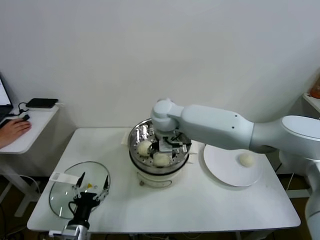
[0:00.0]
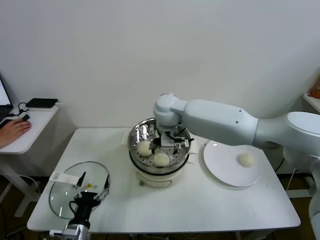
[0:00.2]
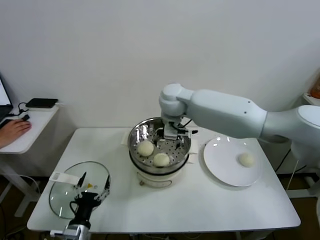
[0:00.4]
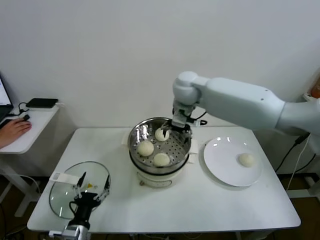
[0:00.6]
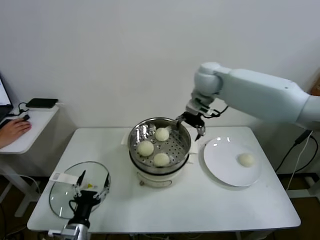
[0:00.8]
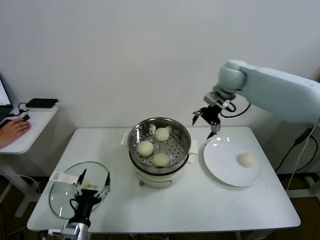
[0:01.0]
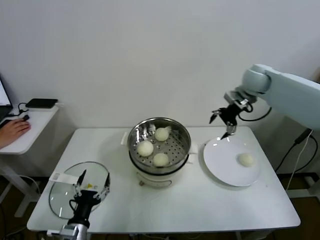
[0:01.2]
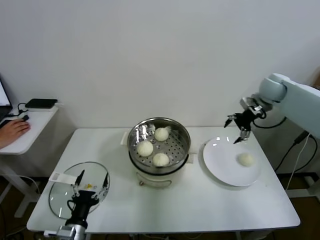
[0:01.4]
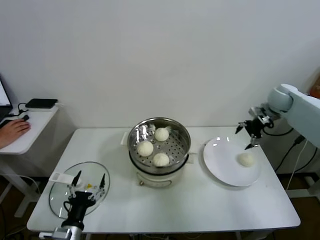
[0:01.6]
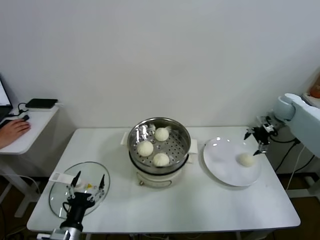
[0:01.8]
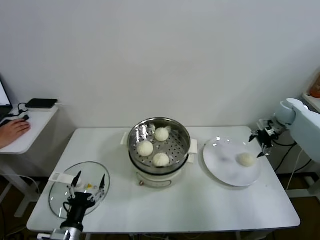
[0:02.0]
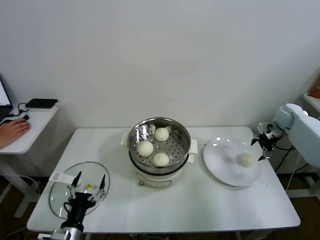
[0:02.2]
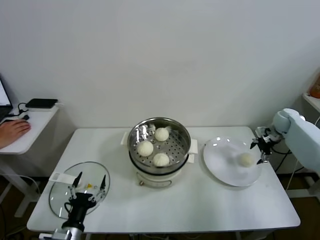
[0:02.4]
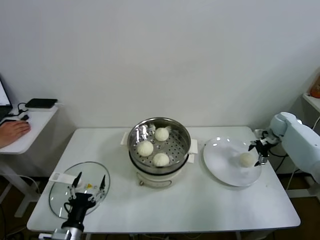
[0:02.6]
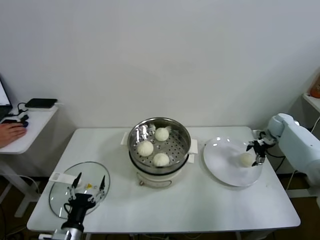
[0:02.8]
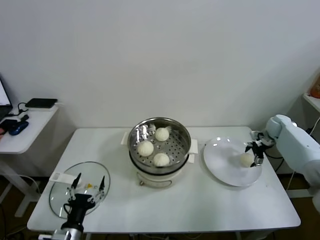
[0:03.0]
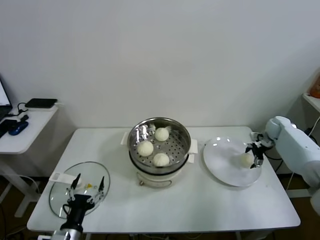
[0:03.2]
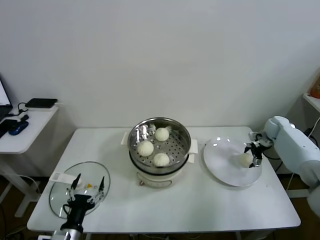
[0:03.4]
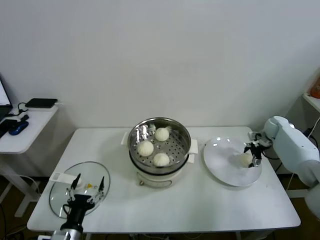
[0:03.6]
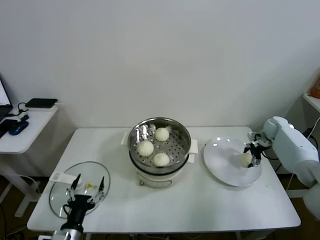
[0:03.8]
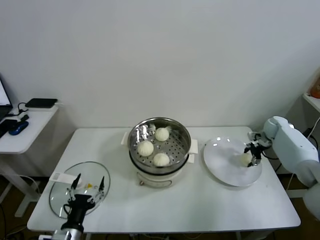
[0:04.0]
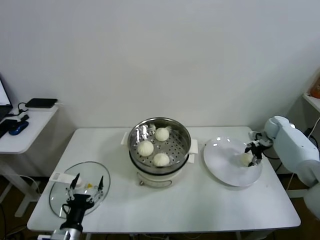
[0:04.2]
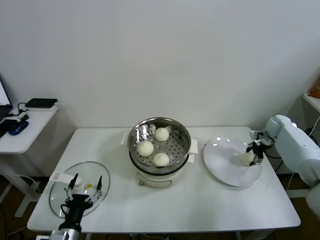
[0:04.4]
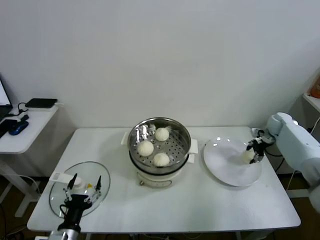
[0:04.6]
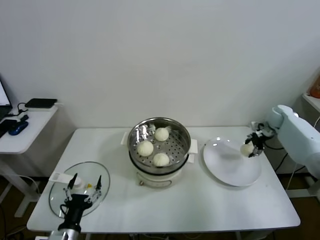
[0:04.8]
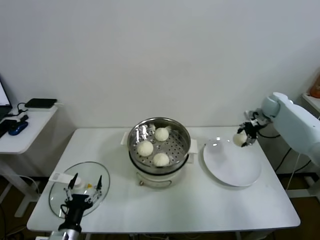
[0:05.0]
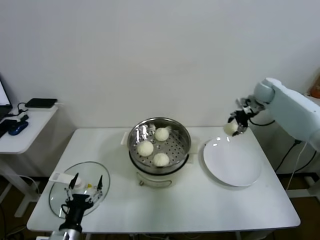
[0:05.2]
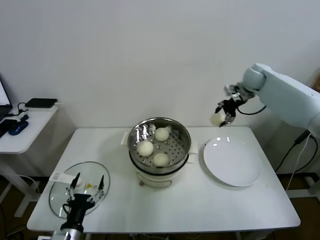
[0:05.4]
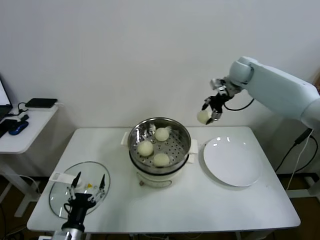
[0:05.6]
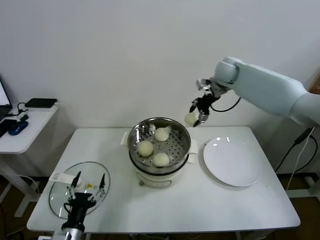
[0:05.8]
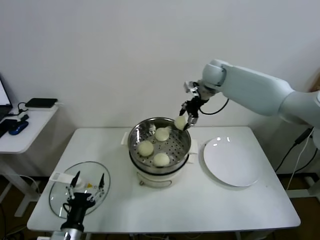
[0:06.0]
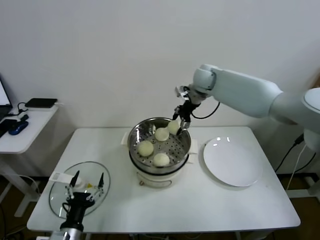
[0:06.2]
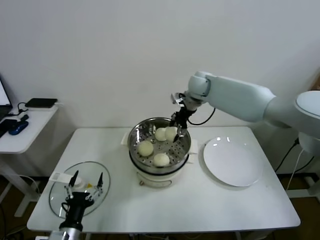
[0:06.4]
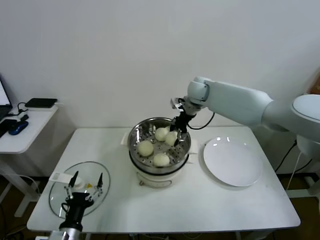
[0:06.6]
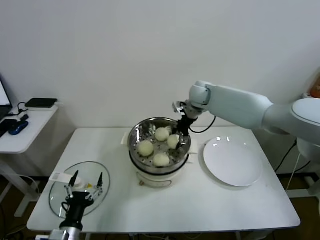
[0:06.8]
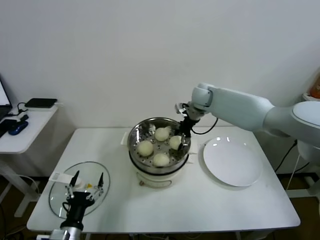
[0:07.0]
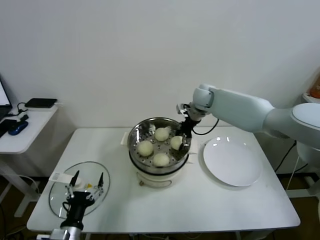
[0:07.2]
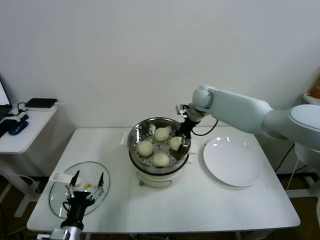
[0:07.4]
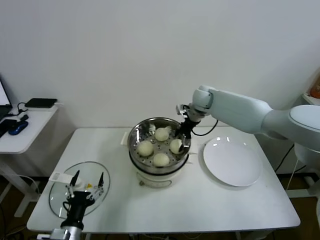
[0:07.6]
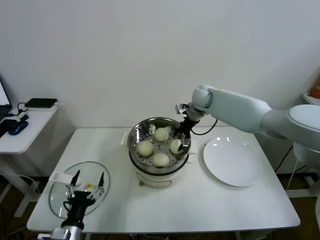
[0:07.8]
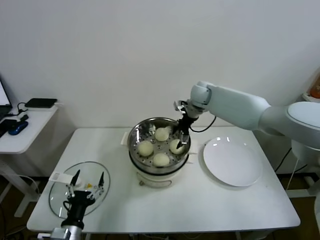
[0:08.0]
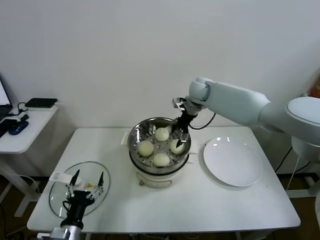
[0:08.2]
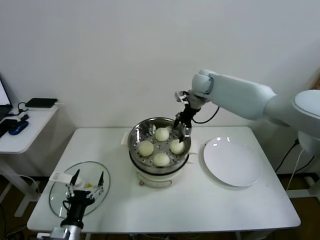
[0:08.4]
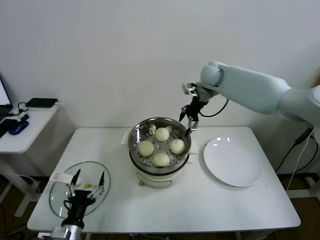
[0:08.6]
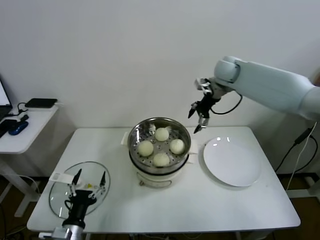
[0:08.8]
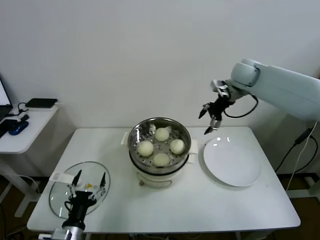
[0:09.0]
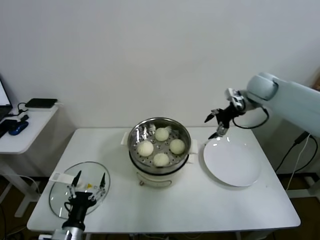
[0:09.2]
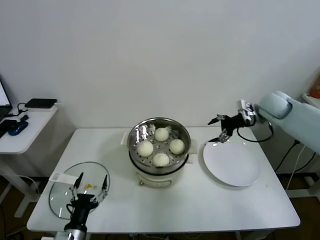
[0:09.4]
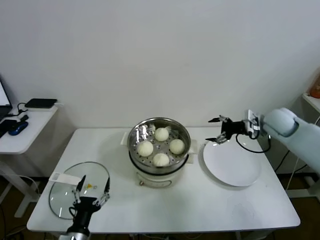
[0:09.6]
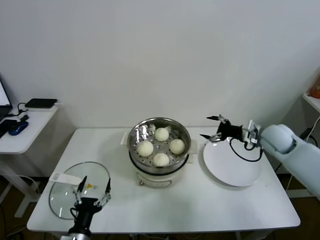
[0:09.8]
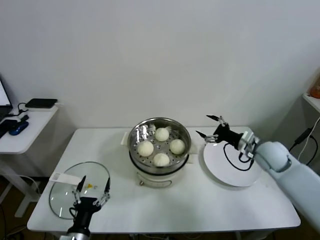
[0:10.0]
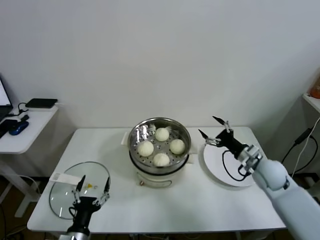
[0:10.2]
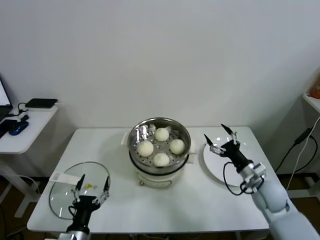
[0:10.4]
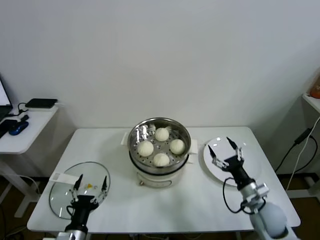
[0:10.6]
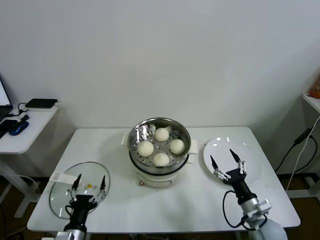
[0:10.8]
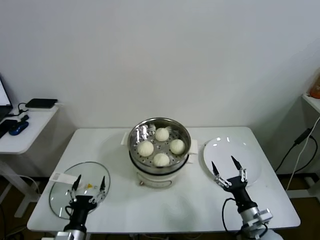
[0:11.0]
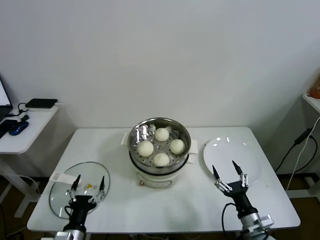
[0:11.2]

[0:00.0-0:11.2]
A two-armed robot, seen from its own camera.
Task of the whole recording: take steamed baozi put them in steamer.
Step, 0:00.0 to 0:04.2: Grasp the baozi in the plate with right gripper.
Step, 0:04.4 to 0:07.8: Place the baozi on the steamer with right gripper.
0:00.0 to 0:01.6: The right gripper shifts about 40 cm to the right.
0:01.6 to 0:03.2: The right gripper heads downward, covering approximately 15 cm.
0:03.2 to 0:04.8: The right gripper closes its fingers.
0:04.8 to 0:06.4: The right gripper travels to the left and upward by roughly 40 cm.
0:06.4 to 0:08.0: The right gripper shifts roughly 5 cm downward, and opens its fingers.
0:08.0 to 0:09.6: The right gripper goes roughly 25 cm to the right and backward.
0:09.6 to 0:11.2: The right gripper travels backward and downward by roughly 40 cm.
